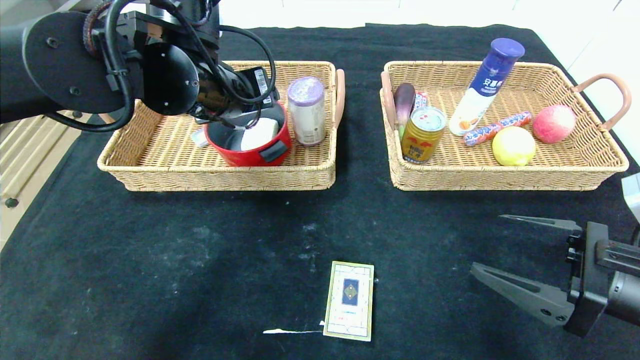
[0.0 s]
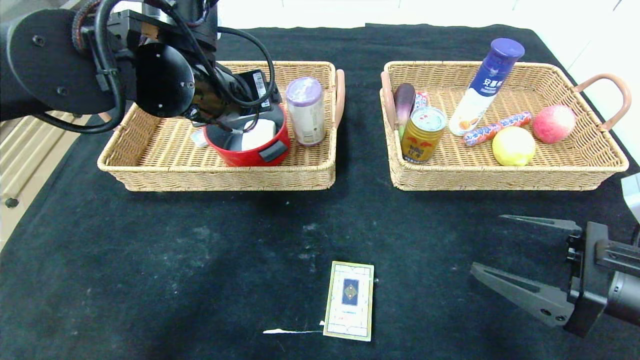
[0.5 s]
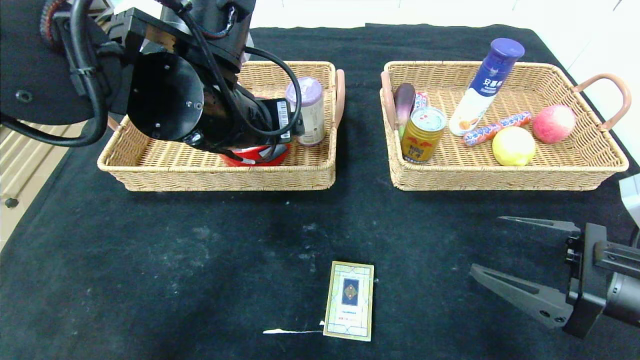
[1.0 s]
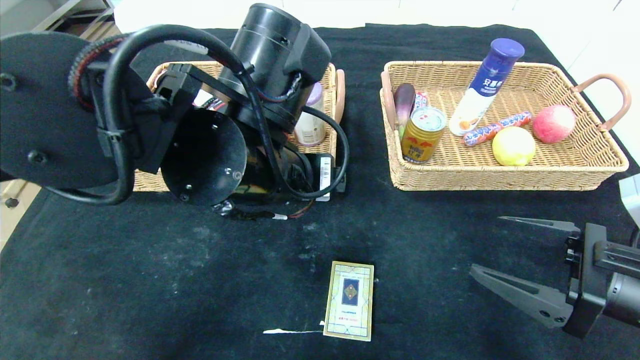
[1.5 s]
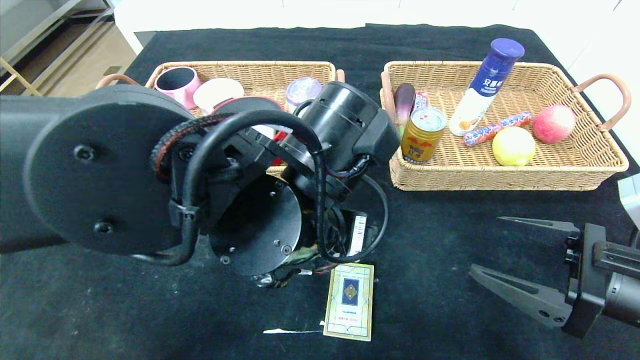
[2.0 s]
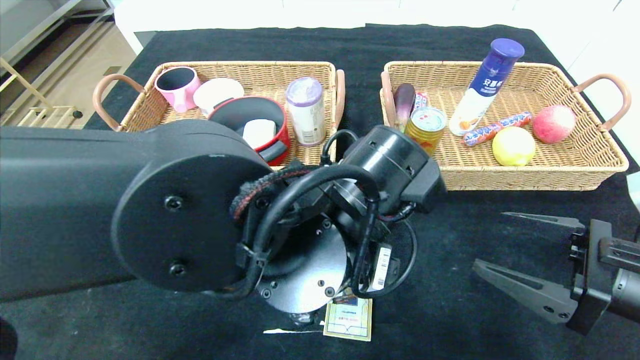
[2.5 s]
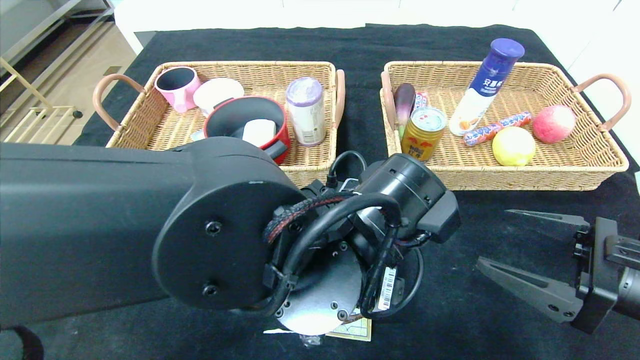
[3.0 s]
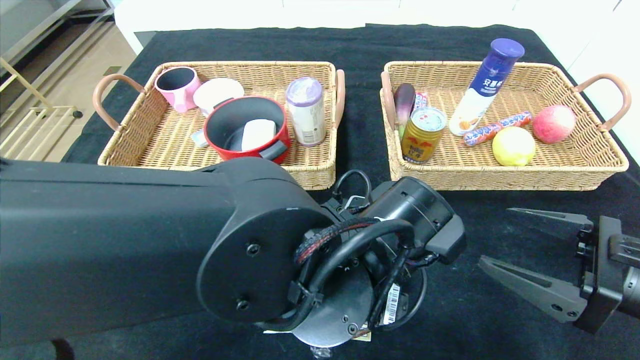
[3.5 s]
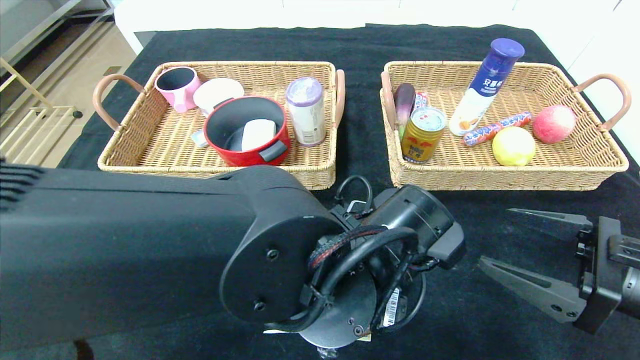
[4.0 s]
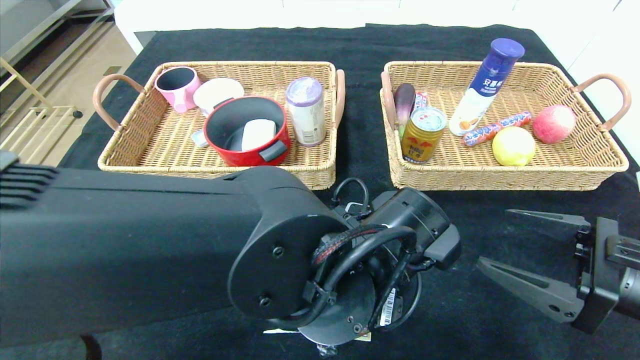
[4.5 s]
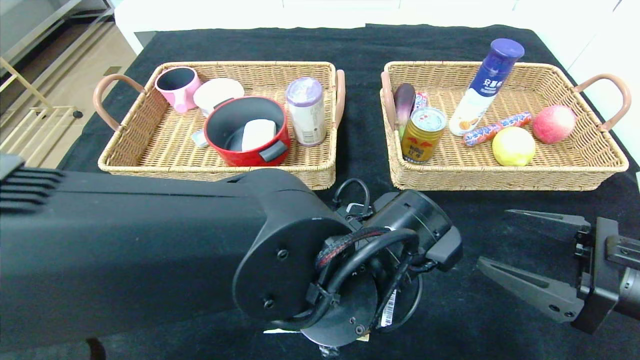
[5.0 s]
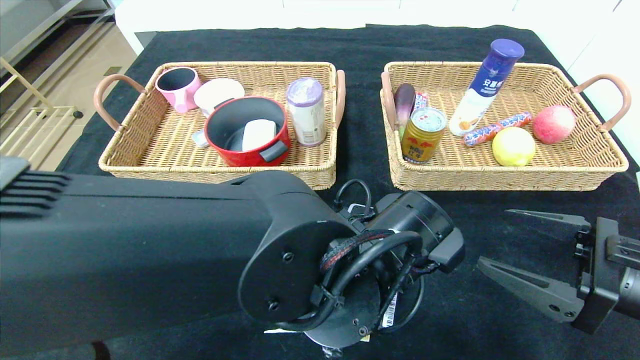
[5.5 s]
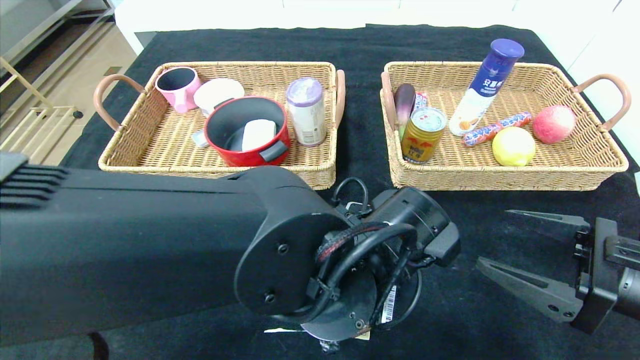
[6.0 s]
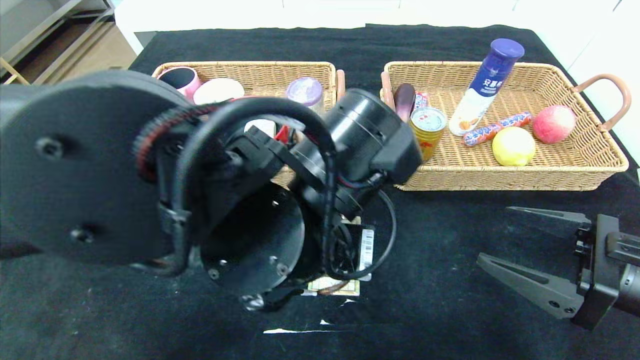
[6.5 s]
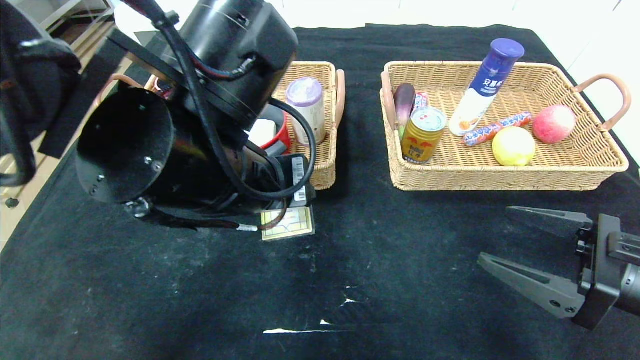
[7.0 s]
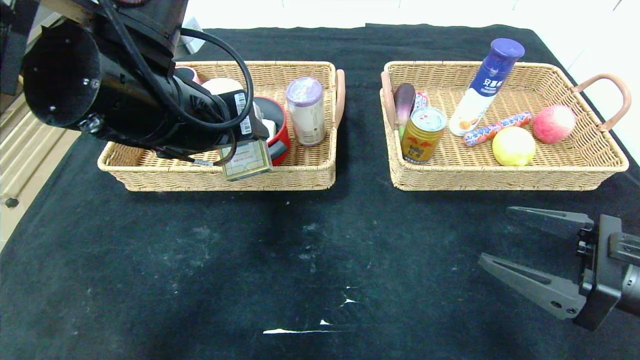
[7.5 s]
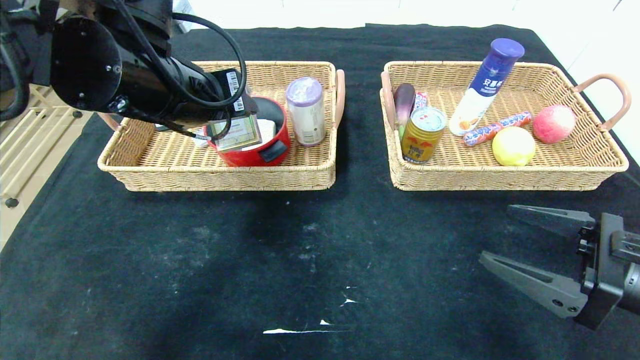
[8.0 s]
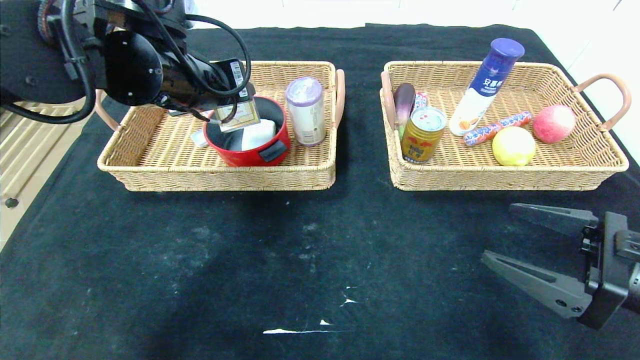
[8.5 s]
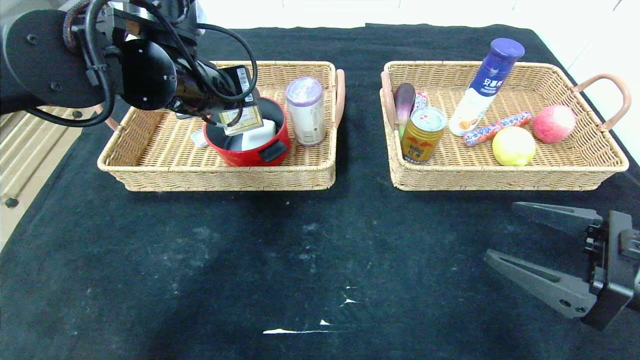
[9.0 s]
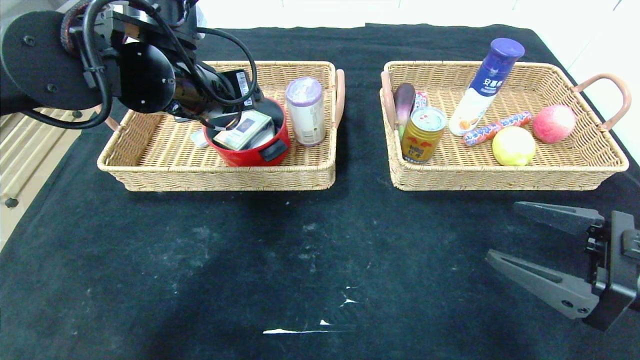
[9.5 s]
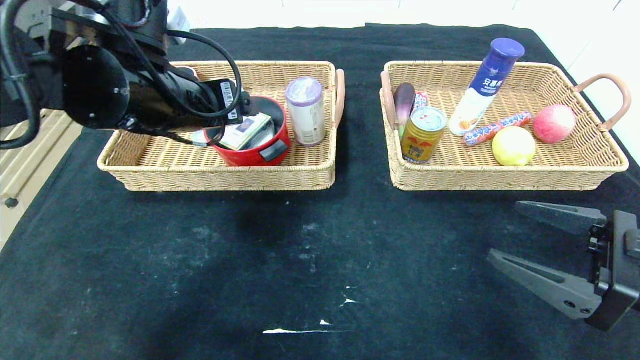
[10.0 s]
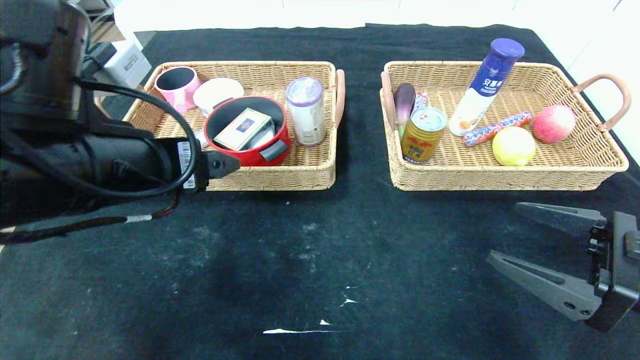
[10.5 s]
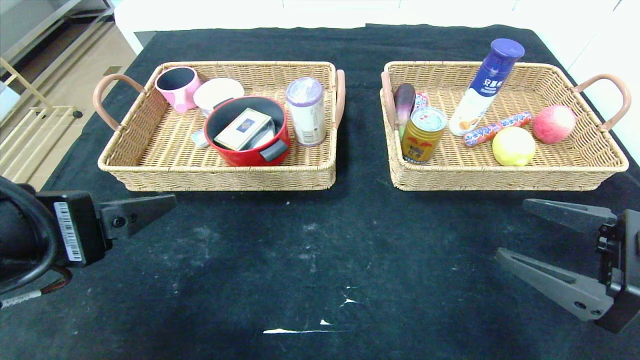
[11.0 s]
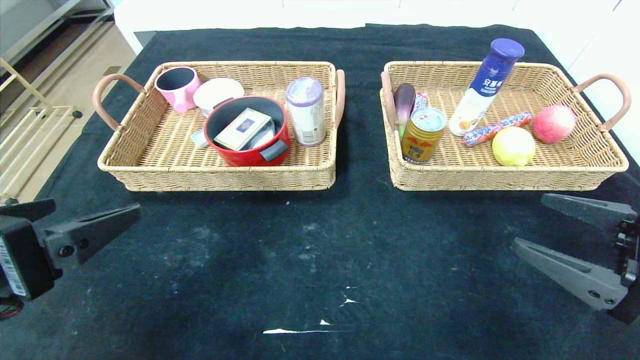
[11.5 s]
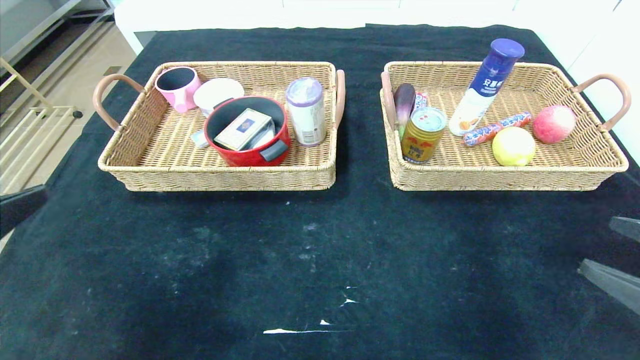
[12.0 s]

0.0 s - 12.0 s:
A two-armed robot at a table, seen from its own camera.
Step, 0.5 s - 9.0 s: Grasp the playing cards and put it in the left basket.
0.0 s - 2.0 s: The left gripper moves backward, to the right and downward, some 20 cm.
2.0 s - 4.0 s: The left gripper is displaced downward by about 5 cm.
4.0 s - 6.0 s: The left gripper closes up.
6.0 s - 8.0 s: The left gripper moves to the left, upward and forward, about 25 cm.
8.0 s - 10.0 s: The left gripper opens.
10.0 s - 12.0 s: The left gripper heads backward and to the left, covering about 25 cm. Meanwhile the right gripper is displaced backward by some 5 cm.

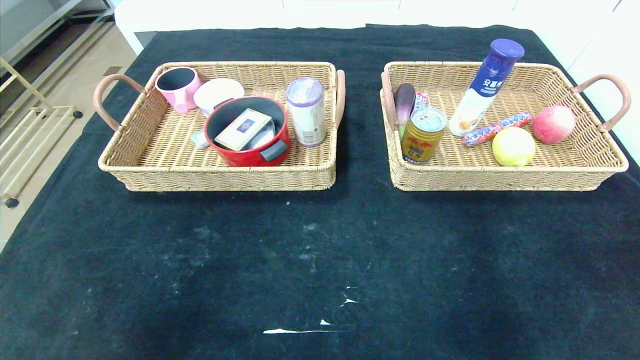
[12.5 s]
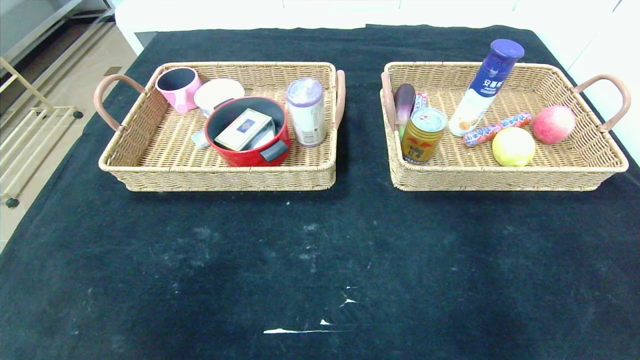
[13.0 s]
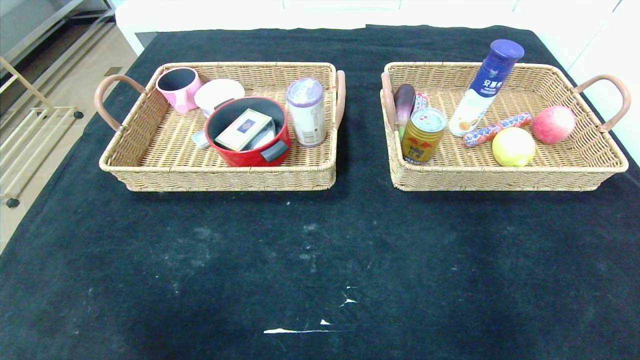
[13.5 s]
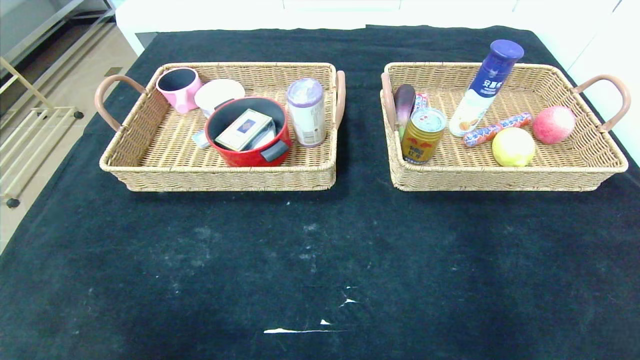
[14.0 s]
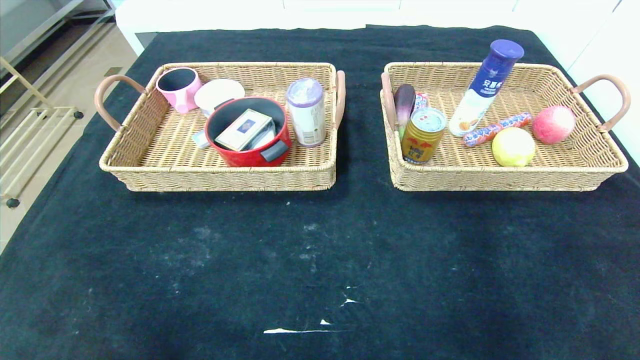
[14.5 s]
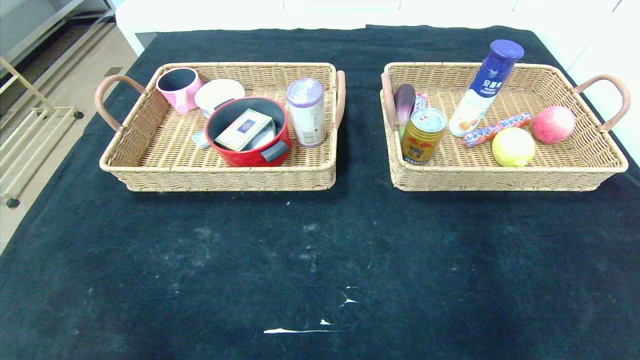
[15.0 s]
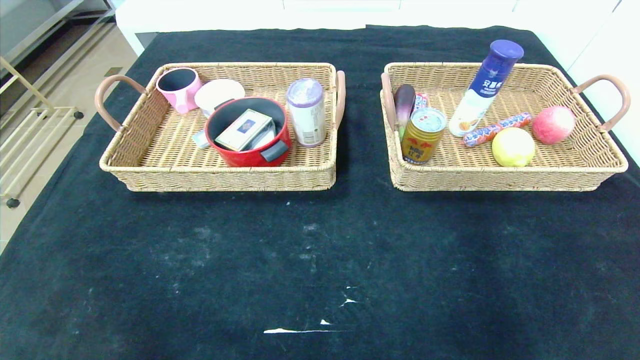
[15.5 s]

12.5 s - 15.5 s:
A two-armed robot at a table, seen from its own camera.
12.5 s - 14.0 s: Both grippers move downward and backward, about 15 cm.

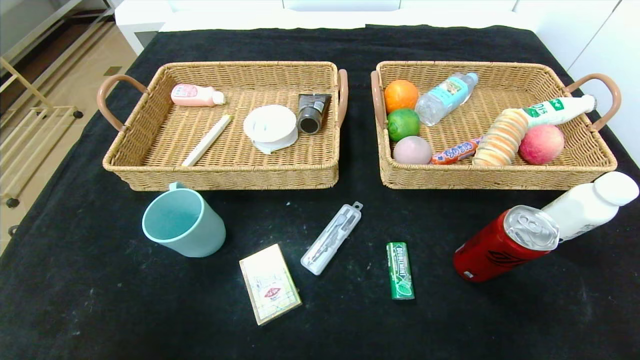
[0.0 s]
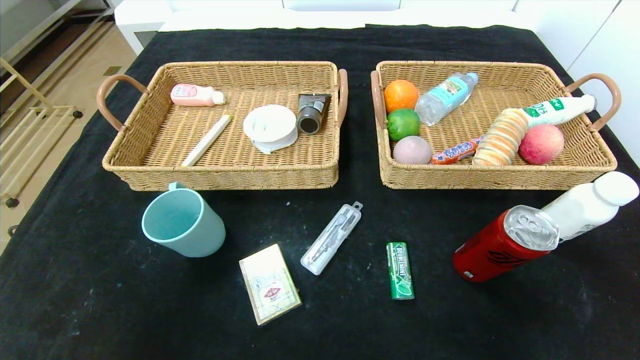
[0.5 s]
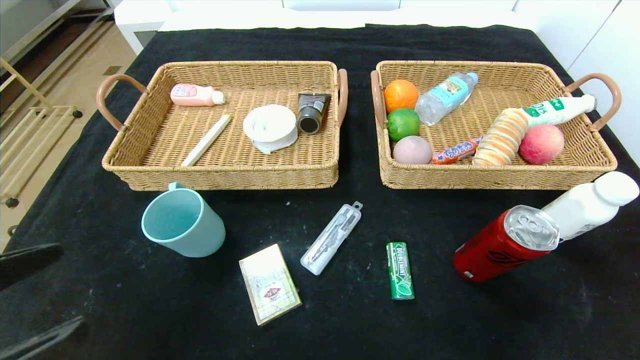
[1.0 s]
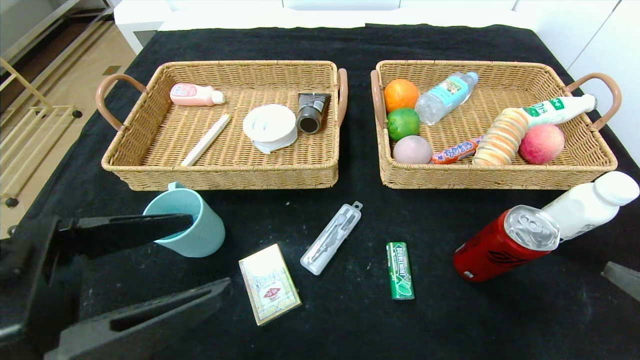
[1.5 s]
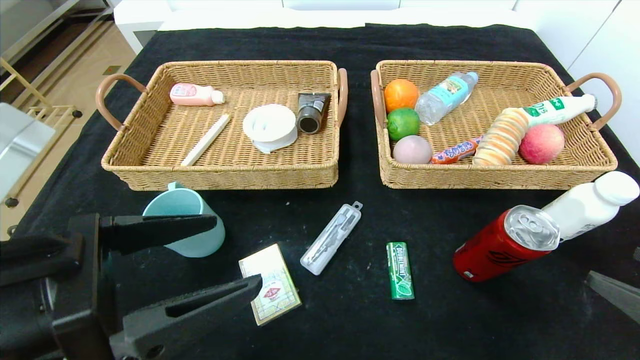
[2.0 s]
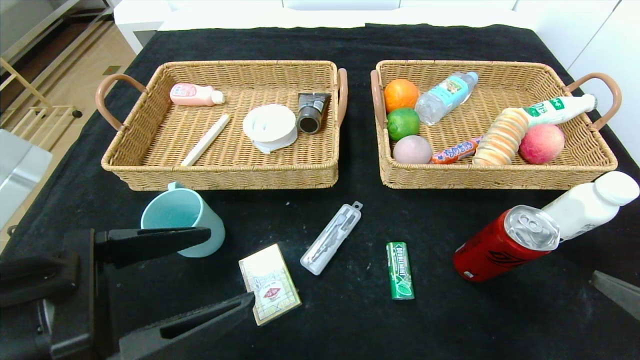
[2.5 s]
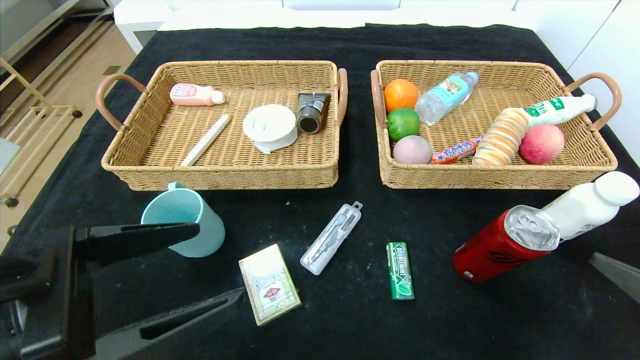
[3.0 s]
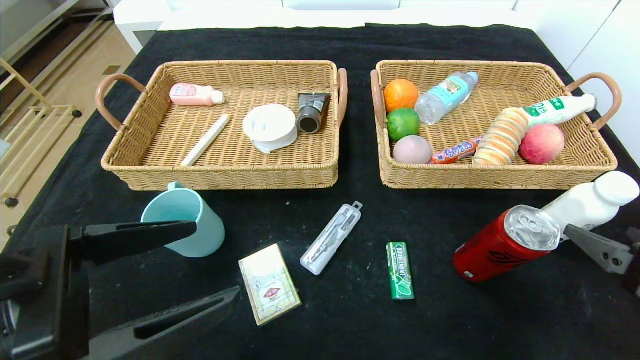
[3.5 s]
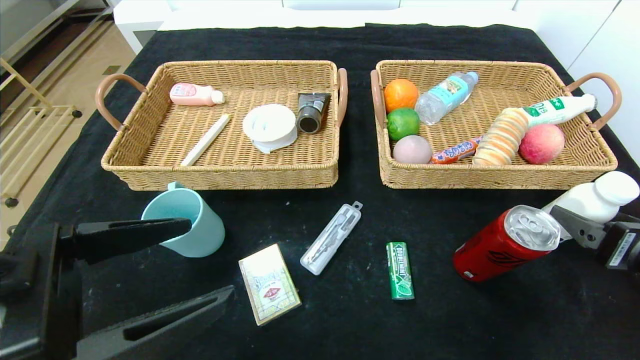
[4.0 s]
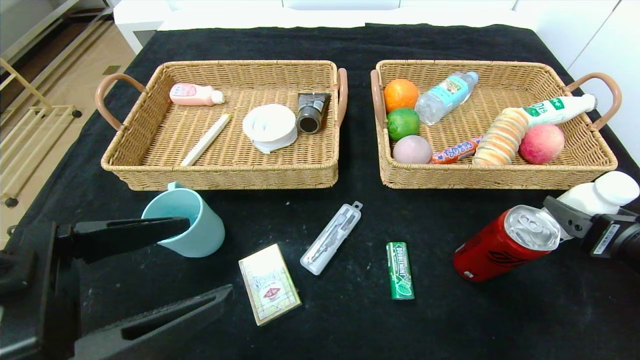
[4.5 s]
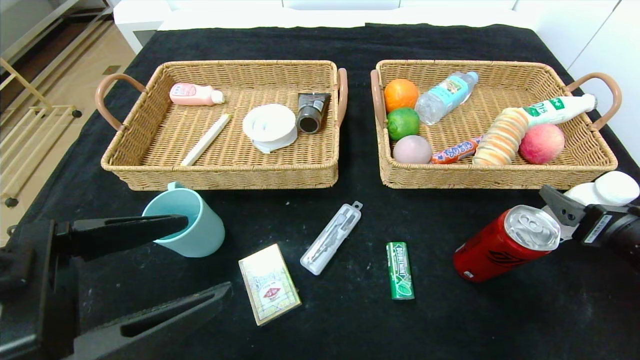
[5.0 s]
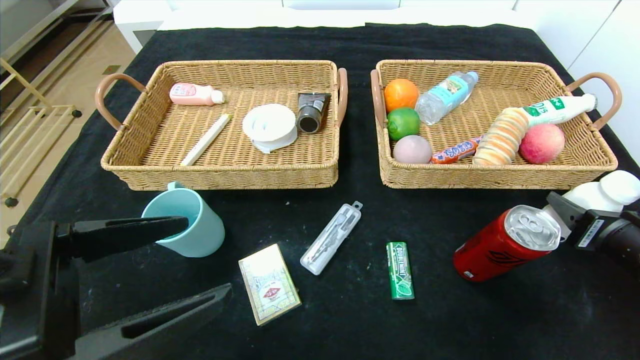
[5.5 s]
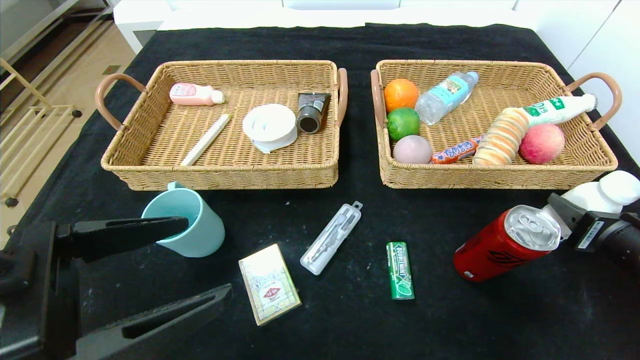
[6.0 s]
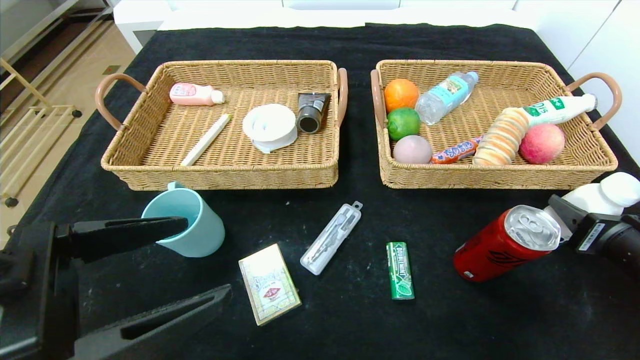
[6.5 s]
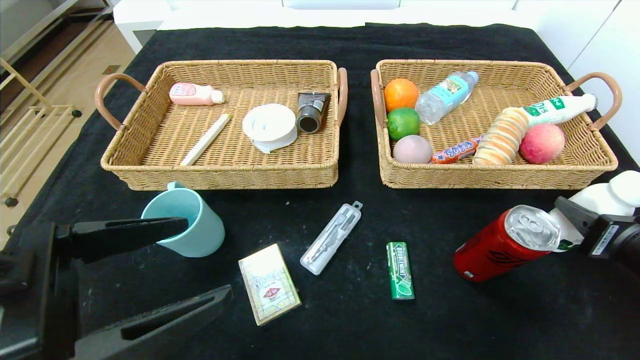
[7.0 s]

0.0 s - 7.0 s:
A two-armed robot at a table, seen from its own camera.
0.0 s - 2.0 s: The left gripper heads forward, upward and to the right, covering approximately 20 cm; the right gripper heads forward and upward, covering some 15 cm.
2.0 s - 3.5 s: The right gripper moves forward, about 5 cm.
3.5 s - 5.0 s: The right gripper heads forward, covering about 5 cm.
5.0 s - 7.0 s: The right gripper closes.
